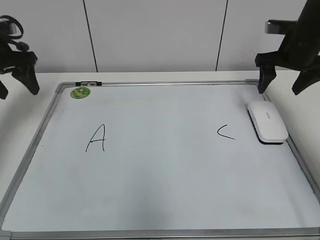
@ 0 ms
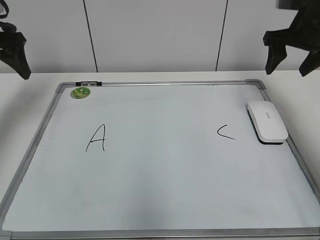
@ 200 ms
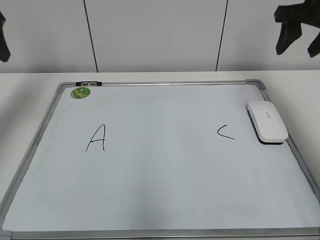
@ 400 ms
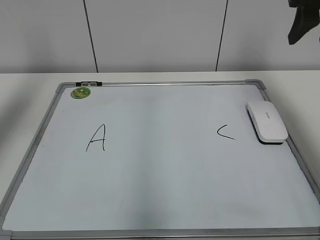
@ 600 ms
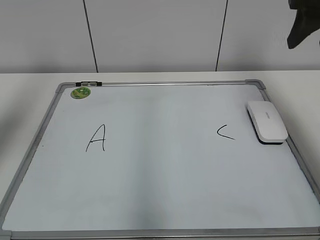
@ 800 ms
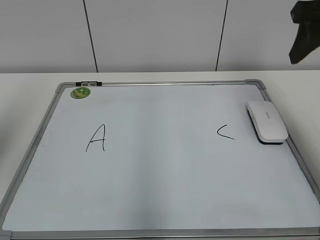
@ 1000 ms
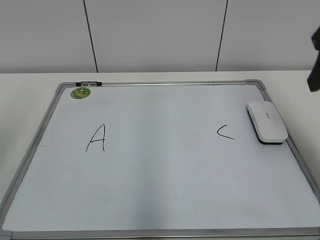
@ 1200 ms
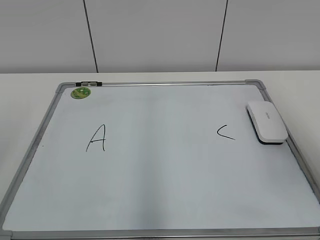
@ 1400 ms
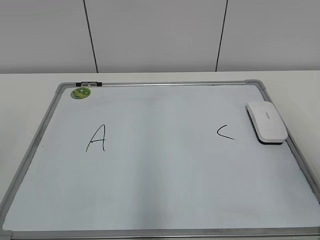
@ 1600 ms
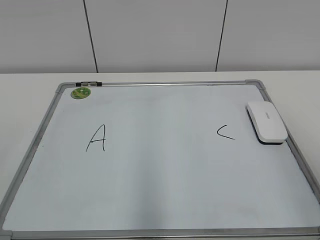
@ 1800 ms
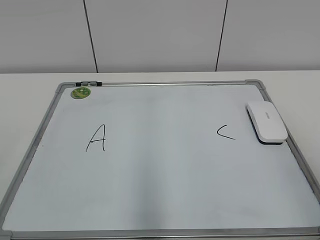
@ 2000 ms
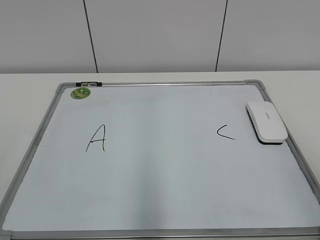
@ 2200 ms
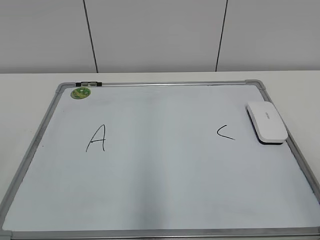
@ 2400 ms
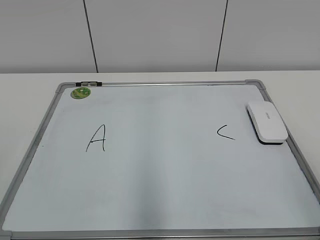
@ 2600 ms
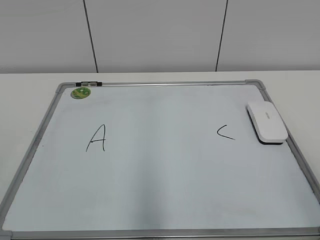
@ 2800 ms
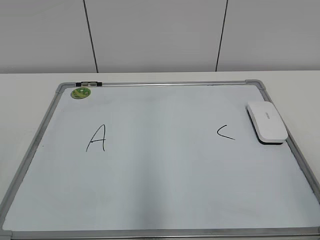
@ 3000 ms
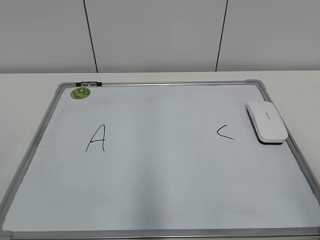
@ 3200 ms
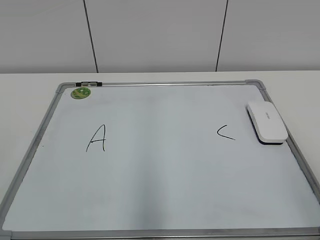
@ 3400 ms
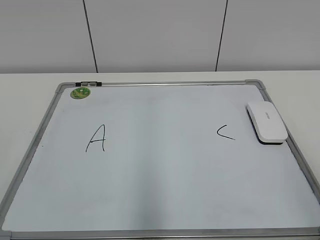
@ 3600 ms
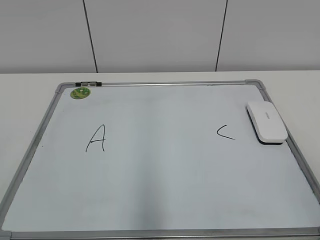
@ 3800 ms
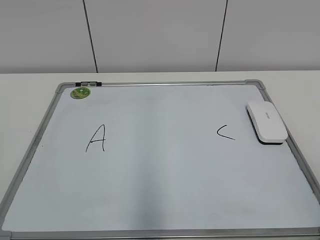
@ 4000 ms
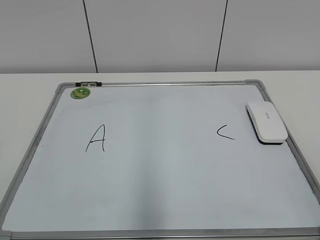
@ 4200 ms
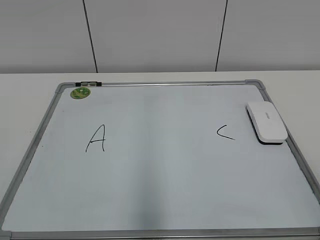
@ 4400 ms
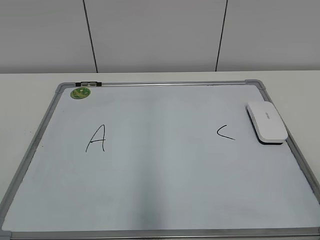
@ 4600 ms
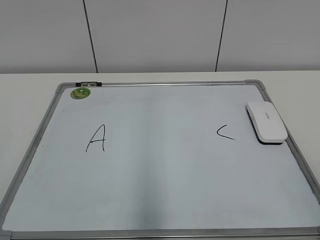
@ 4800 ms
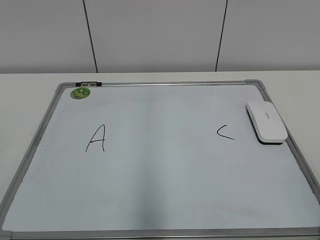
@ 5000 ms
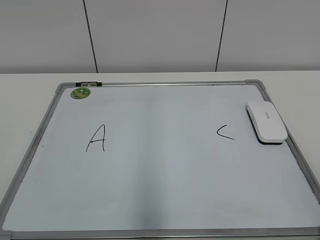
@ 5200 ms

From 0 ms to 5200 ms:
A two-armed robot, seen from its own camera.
Task of the whole recording: pick up the eraser on the blackboard and erase the letter "B".
From 0 ms to 1800 ms: Both grippers travel together backward, about 35 cm. The right gripper closes up.
